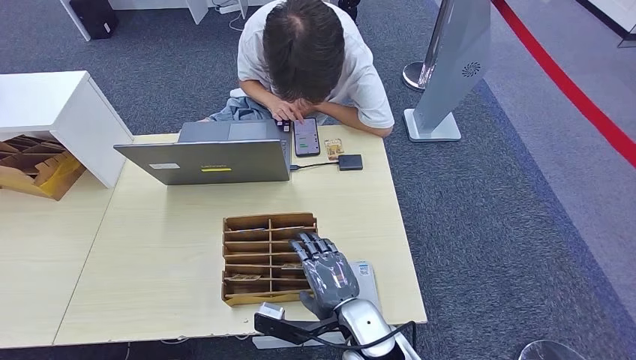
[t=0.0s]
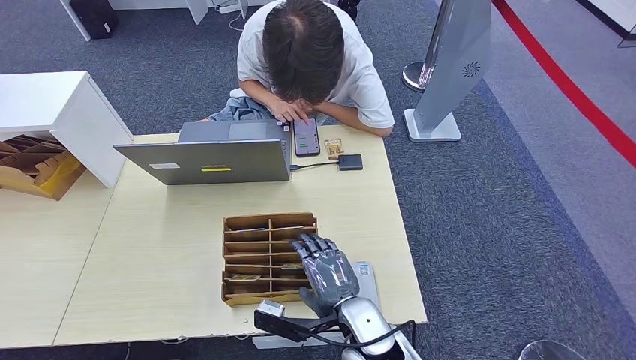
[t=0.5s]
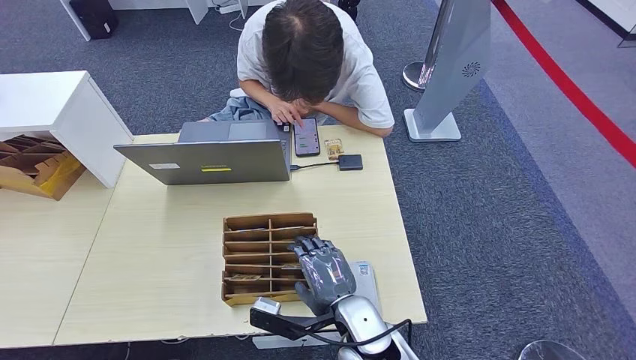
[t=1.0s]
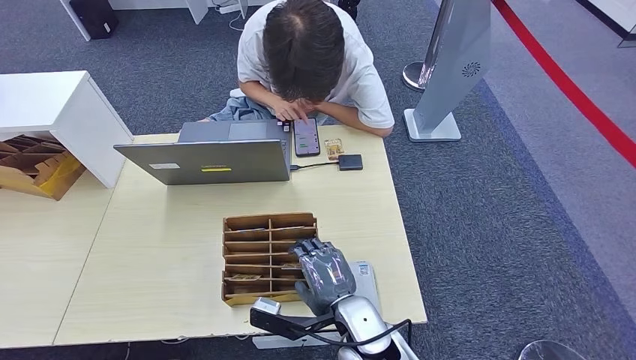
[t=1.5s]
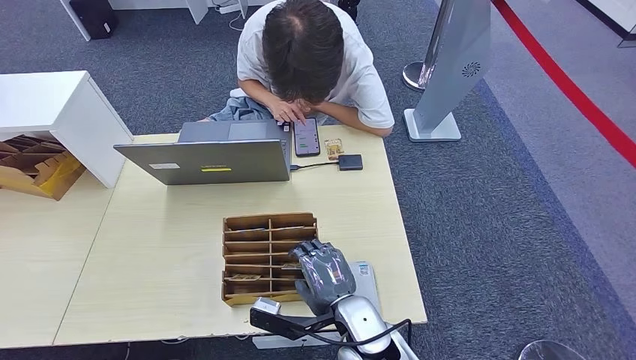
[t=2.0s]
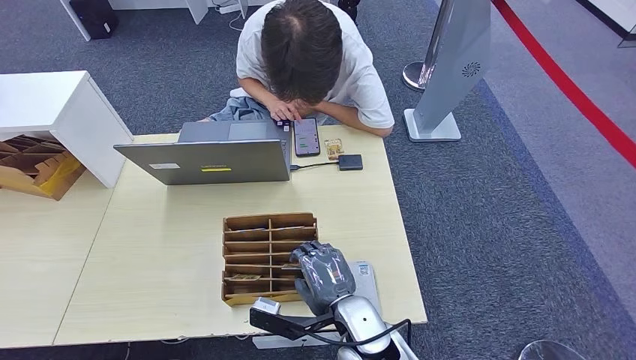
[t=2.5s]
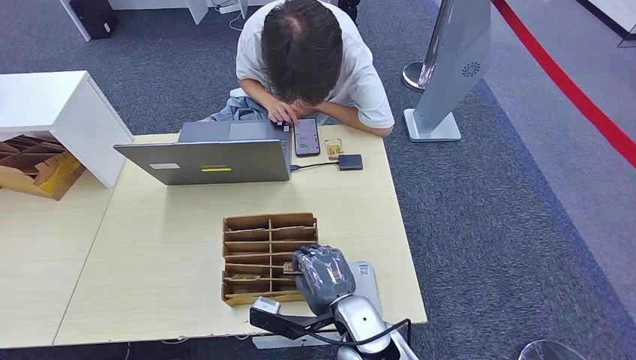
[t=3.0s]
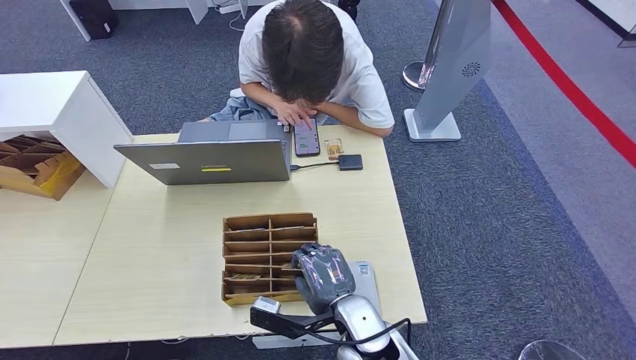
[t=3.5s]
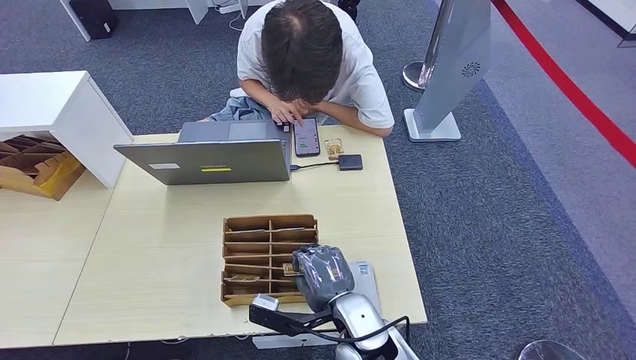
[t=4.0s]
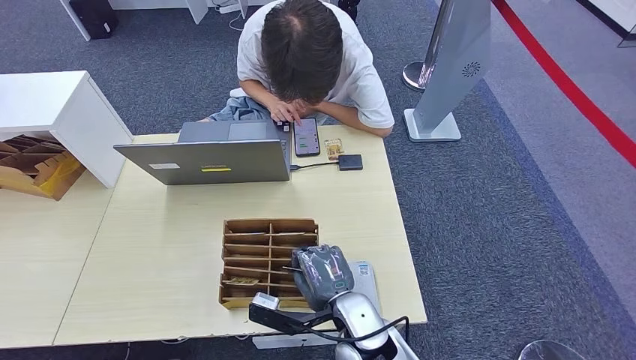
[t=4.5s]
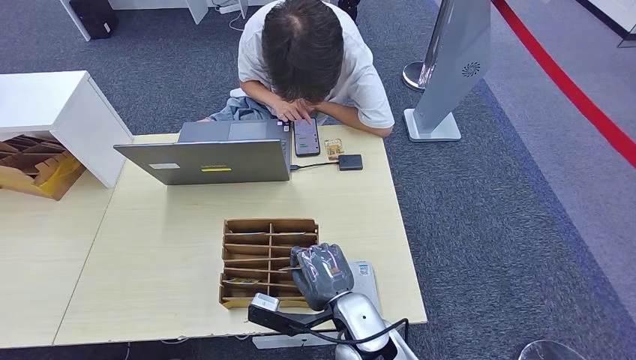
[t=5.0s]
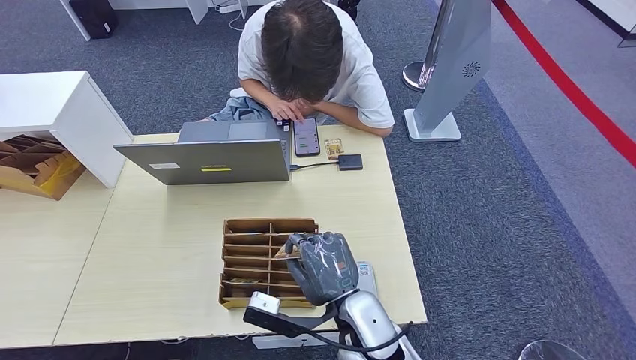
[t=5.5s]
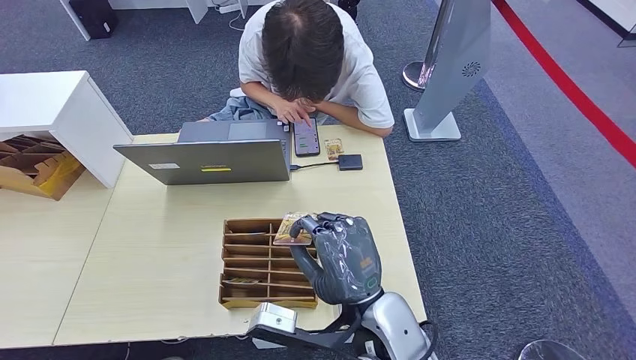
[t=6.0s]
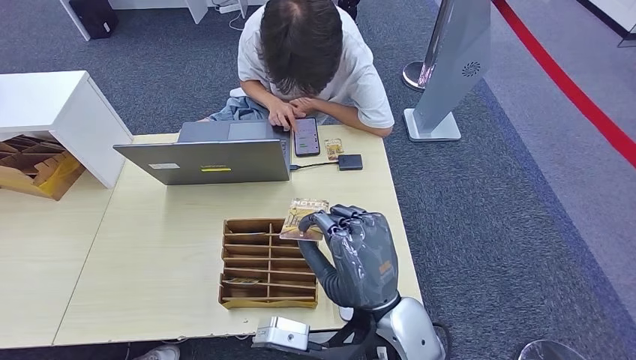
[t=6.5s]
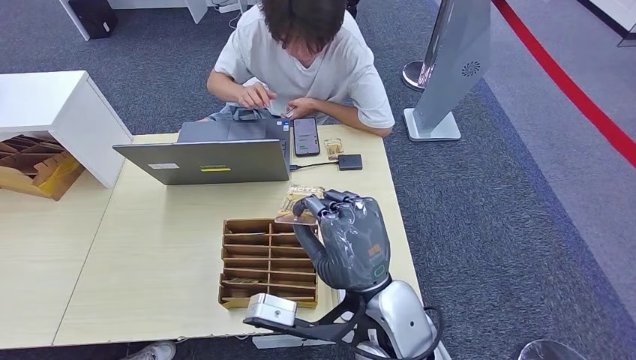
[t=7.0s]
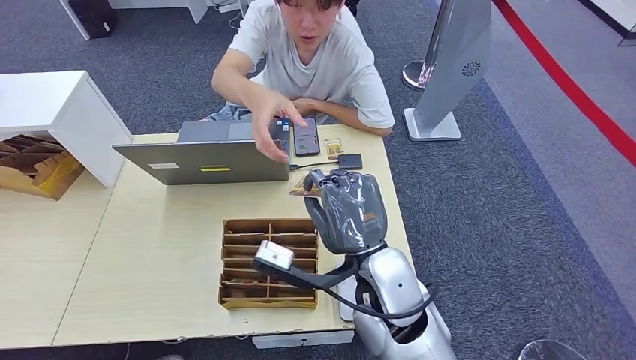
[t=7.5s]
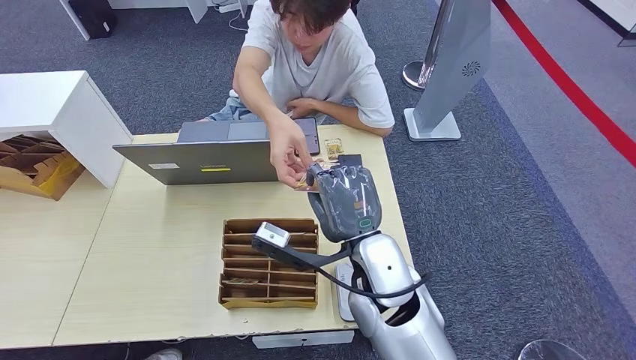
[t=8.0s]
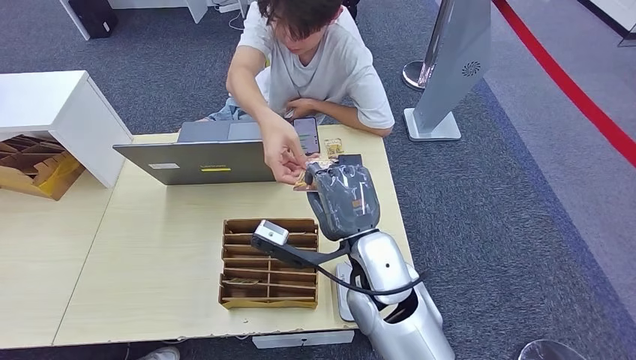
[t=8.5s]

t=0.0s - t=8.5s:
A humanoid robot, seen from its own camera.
Step, t=0.0s - t=5.0s: Pick up the room key from the key card box.
Step, t=5.5s - t=8.5s: Hand the room key to the person.
t=0.0s - t=4.0s: Both hands stay about where they are.
t=4.0s - t=6.5s: The right hand moves upward, roughly 15 cm.
t=6.5s - t=8.5s: The right hand is displaced forward by approximately 10 cm.
